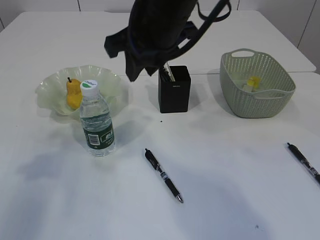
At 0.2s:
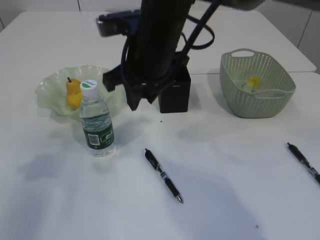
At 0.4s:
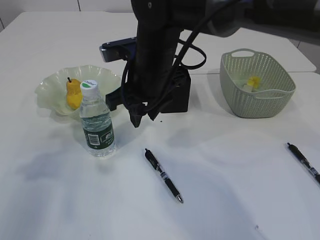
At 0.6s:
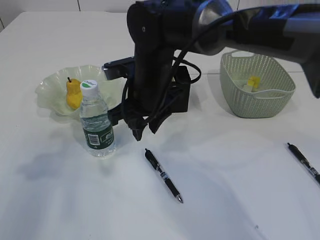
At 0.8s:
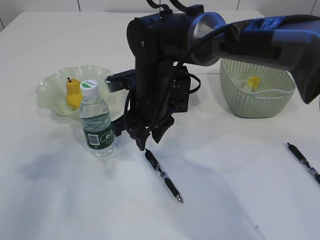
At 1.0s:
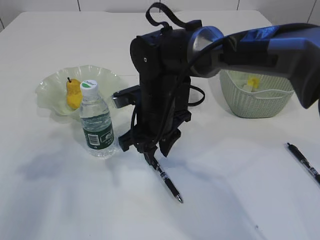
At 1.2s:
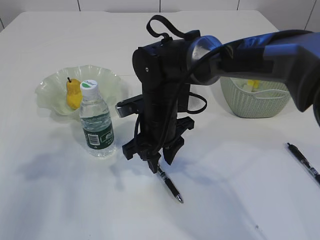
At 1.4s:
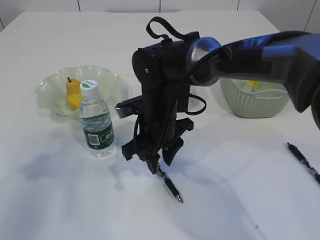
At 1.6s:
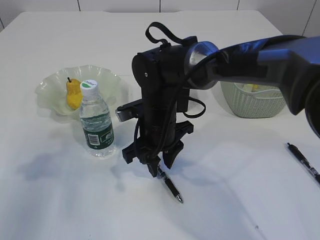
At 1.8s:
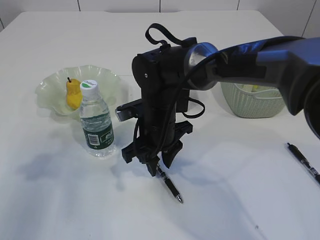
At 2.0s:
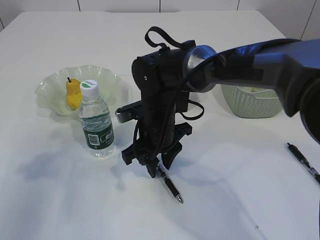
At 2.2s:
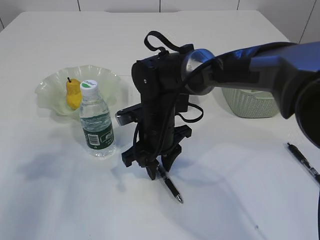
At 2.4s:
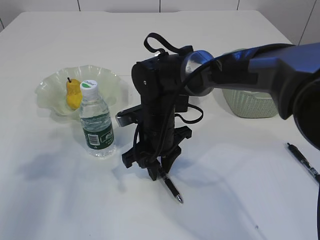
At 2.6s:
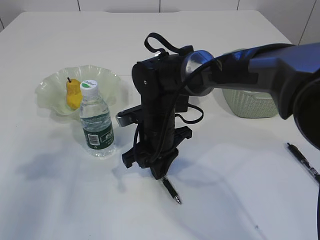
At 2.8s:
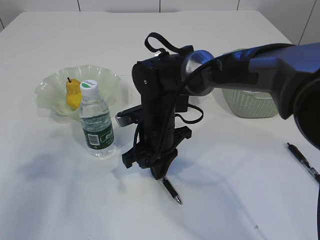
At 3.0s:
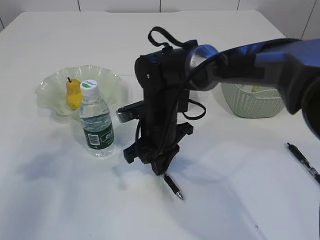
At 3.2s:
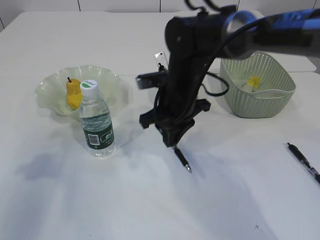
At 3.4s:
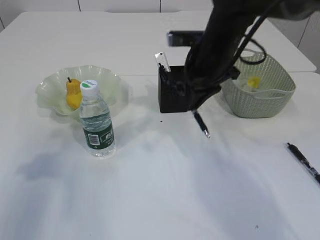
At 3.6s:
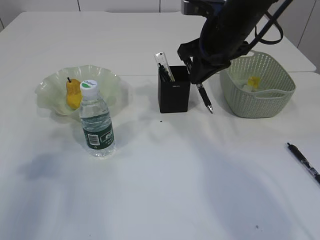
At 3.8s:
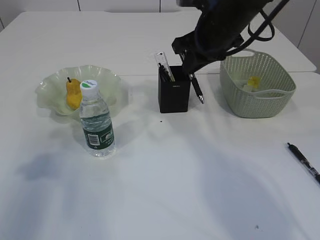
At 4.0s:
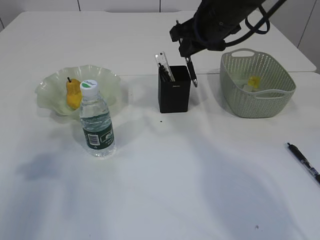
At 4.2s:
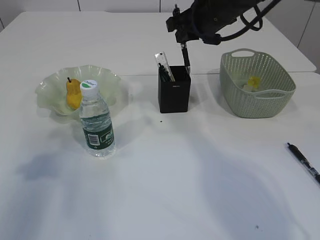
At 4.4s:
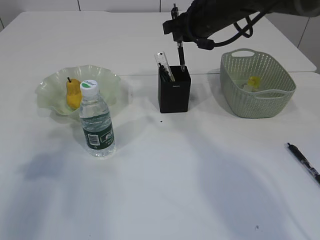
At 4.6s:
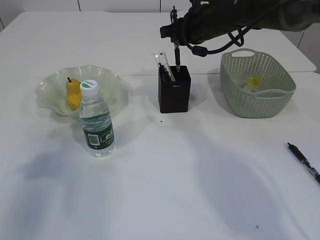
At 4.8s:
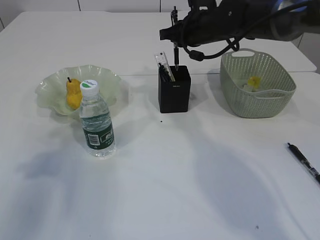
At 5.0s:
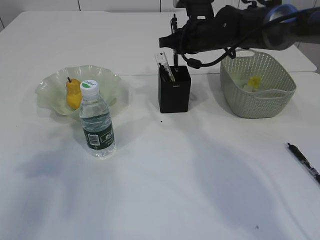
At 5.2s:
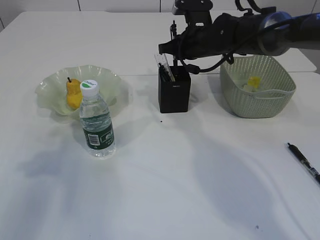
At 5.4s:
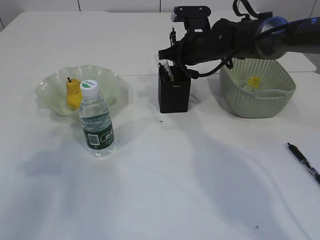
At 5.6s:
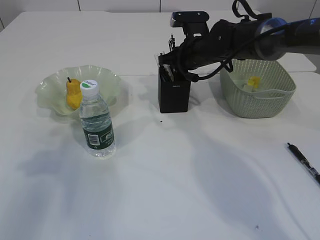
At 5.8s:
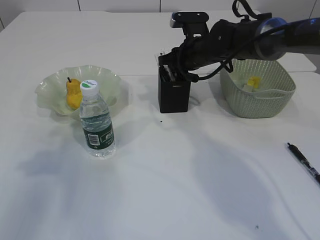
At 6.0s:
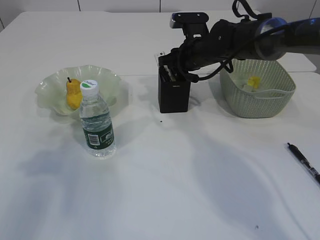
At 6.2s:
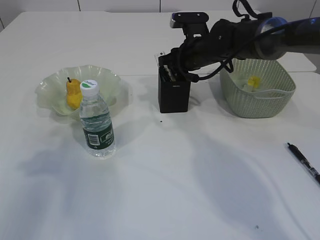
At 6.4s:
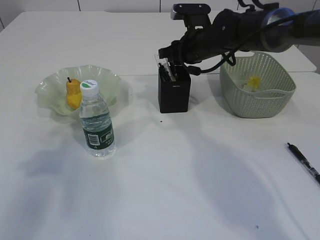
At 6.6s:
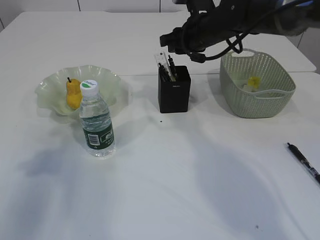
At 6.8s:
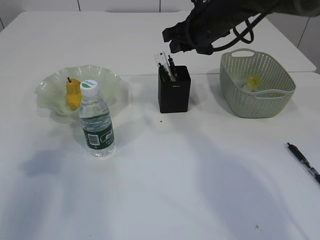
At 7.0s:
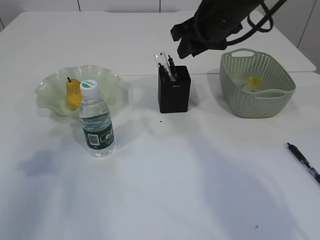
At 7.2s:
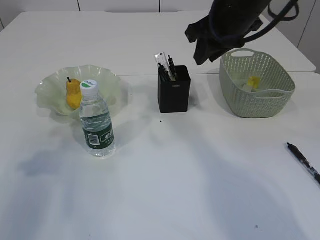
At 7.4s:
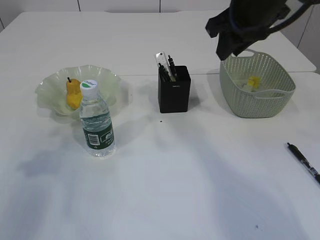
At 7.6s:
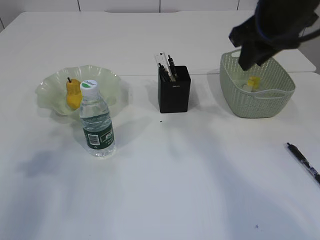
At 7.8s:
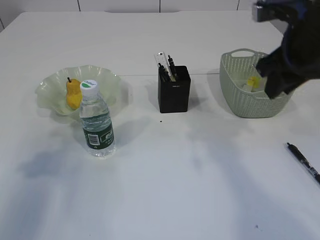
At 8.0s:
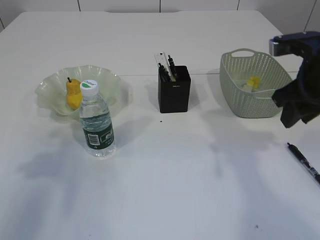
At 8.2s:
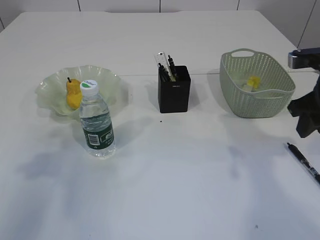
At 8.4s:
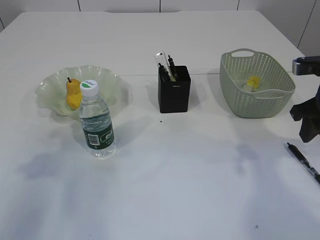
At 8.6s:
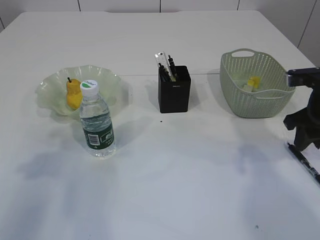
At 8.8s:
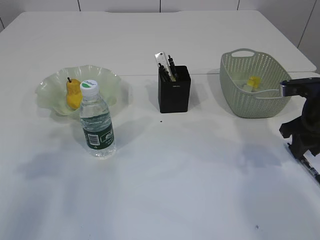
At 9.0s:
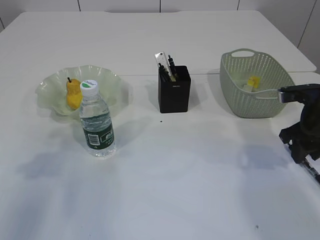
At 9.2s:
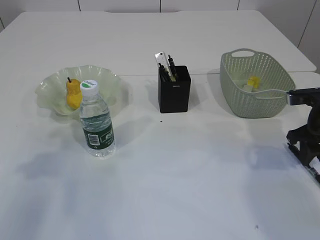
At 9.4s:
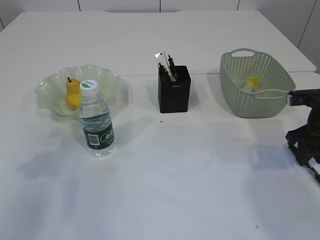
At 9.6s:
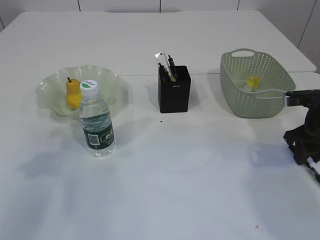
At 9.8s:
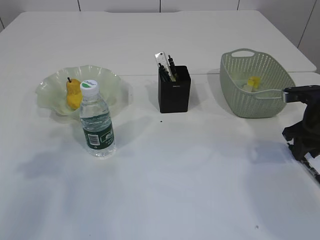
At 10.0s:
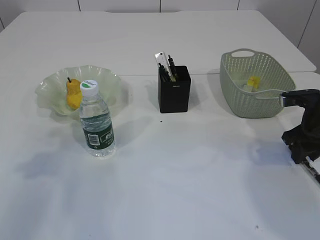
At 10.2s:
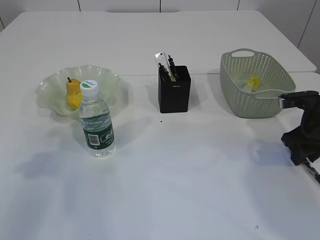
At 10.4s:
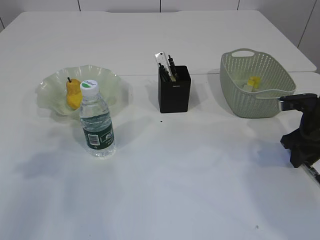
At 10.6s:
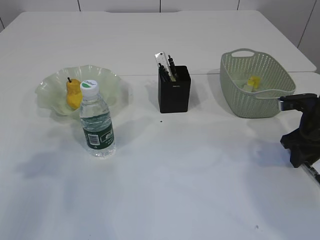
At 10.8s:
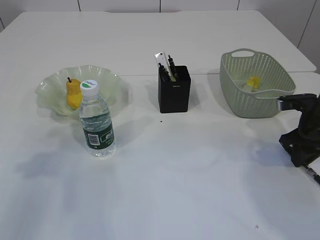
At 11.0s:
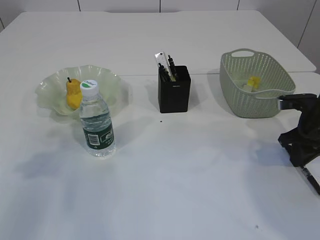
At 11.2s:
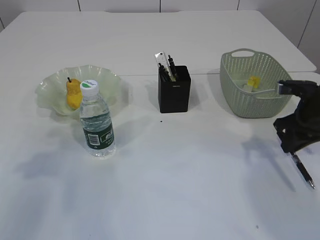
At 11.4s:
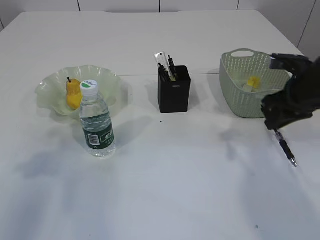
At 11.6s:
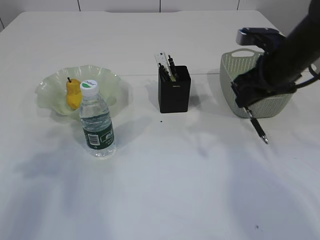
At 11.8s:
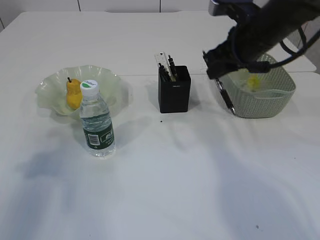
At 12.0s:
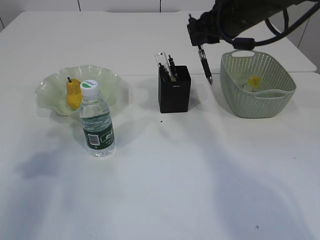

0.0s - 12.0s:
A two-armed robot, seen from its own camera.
Step, 0.0s - 3.0s: Pick up the pen with right arm.
Step, 3.2s - 6.6s: Place the pen into the pen holder.
Step, 6.8s - 11.2s: Pick up the pen with right arm.
0.0s - 1.6s: The right gripper goes about 20 cm downward.
1.6s - 3.0s: The right gripper closes.
3.0s - 4.4s: The right gripper goes about 20 cm upward, to the right and forward.
4.4s - 6.0s: The right gripper shifts some 10 cm downward.
6.0s - 7.6s: The right gripper travels upward, backward and to the right by roughly 20 cm.
7.6s - 9.0s: The right gripper travels downward and to the right by about 20 cm.
9.0s - 10.4s: The grippers stay close to where they were, moving slightly.
10.4s - 12.0s: The right gripper shifts some 25 cm upward and to the left.

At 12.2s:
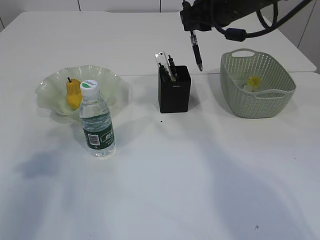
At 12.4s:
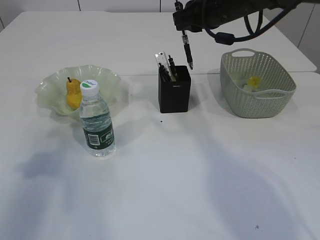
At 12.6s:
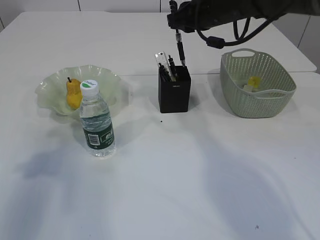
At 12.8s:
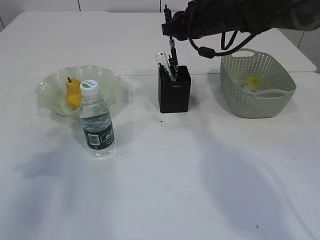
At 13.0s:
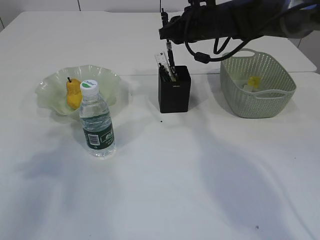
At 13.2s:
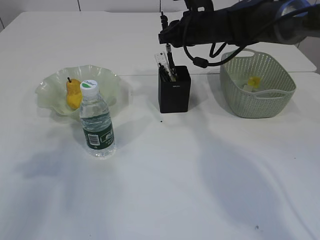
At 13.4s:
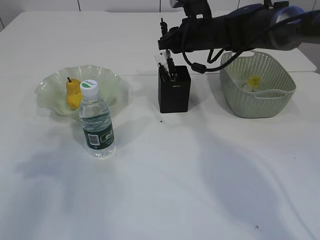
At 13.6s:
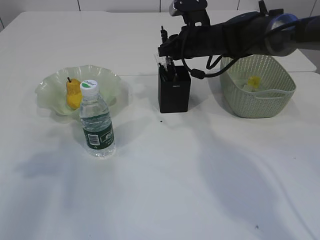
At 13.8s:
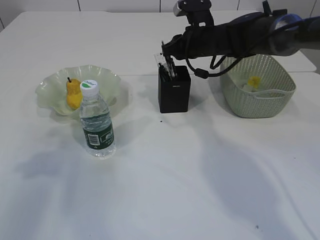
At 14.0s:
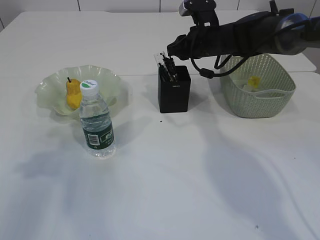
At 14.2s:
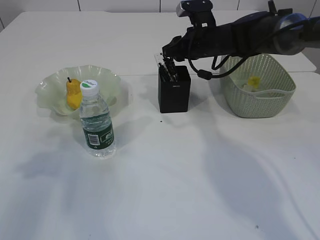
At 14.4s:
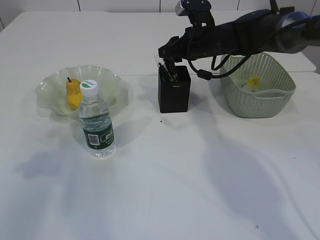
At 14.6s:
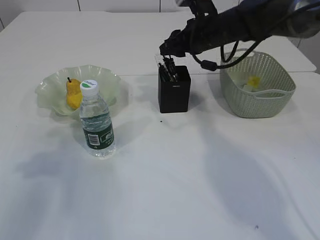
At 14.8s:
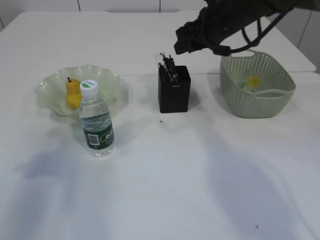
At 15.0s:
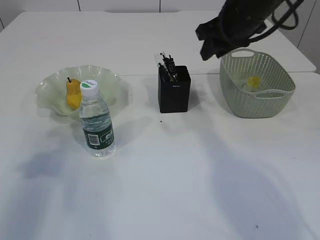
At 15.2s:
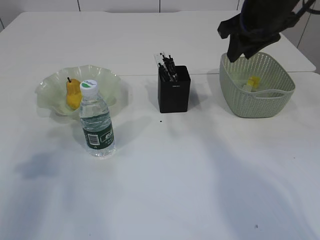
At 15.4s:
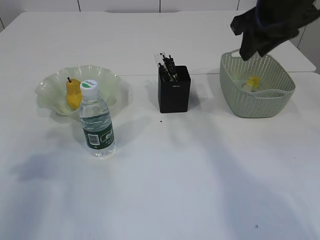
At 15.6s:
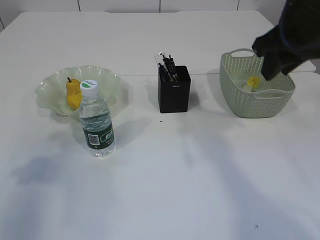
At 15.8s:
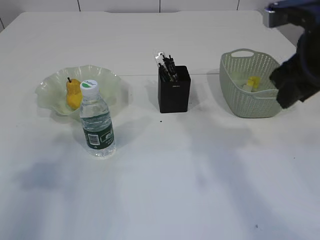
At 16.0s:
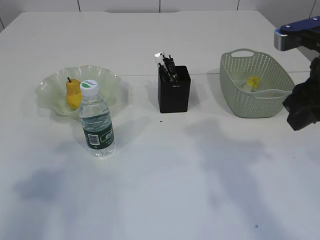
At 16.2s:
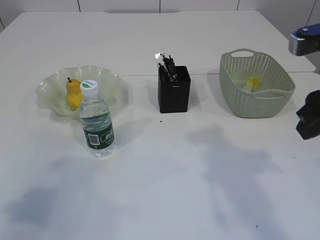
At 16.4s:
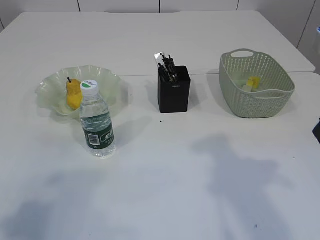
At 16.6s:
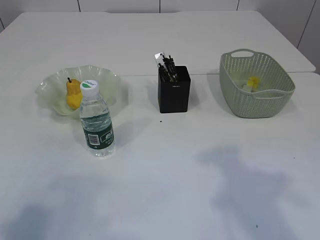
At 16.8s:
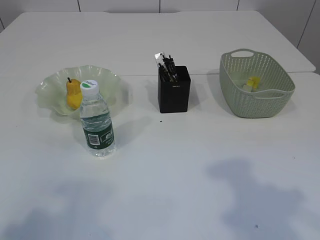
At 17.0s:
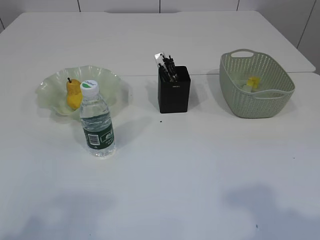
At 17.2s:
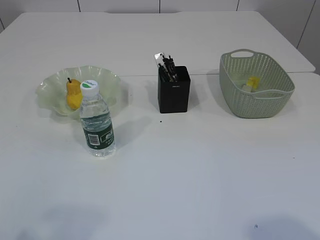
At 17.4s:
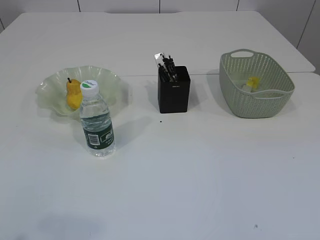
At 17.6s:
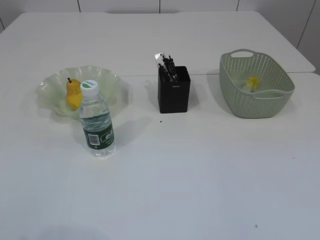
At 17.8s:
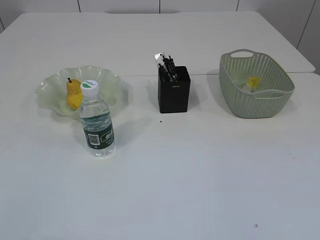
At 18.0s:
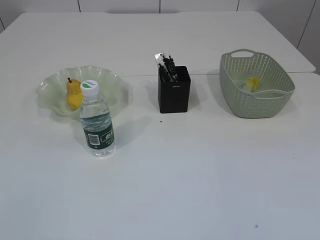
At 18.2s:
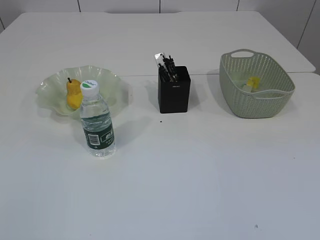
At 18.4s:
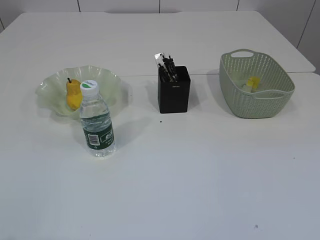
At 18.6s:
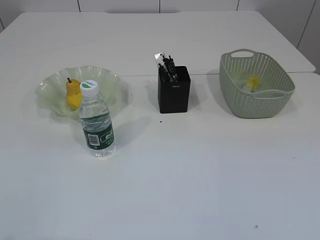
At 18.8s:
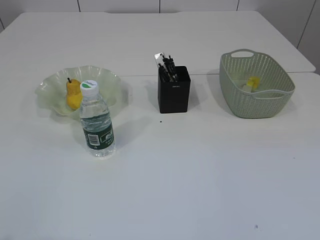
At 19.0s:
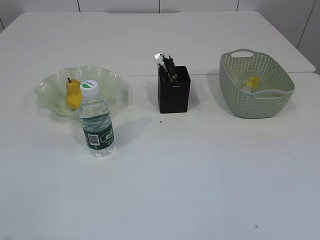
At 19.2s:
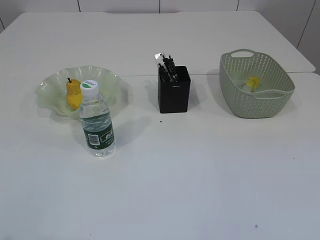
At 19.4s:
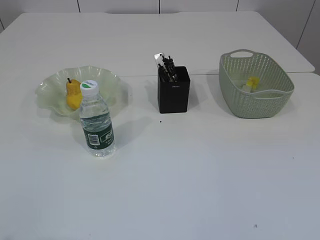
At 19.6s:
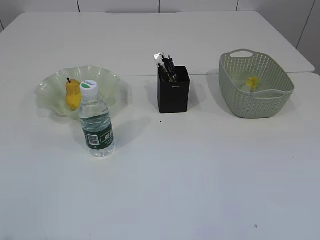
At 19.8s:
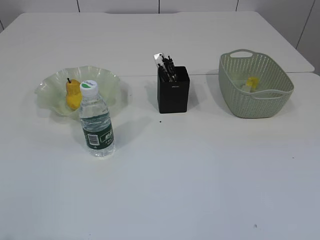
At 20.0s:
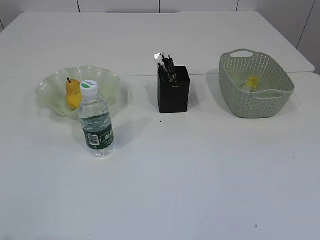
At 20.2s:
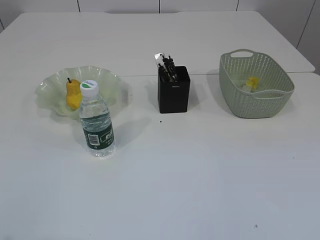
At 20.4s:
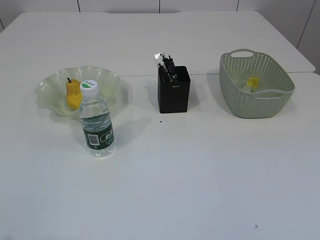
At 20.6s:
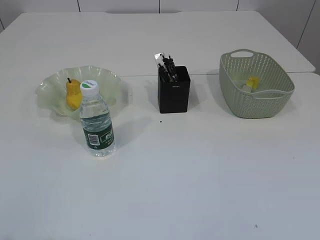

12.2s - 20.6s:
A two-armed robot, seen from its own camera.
Step, 12.2s - 14.6s: Place the pen into the pen holder.
12.2s - 13.6s: The right gripper travels downward and forward by roughly 15 cm.
13.6s - 15.0s: The right gripper shifts about 10 cm upward and backward.
15.0s - 16.4s: The left gripper moves backward, about 15 cm; the right gripper heads backward, covering approximately 20 cm.
16.4s - 17.8s: The left gripper heads backward, covering roughly 10 cm.

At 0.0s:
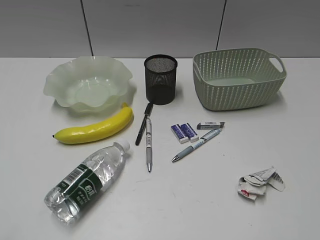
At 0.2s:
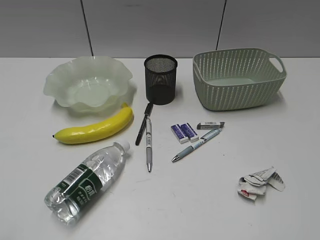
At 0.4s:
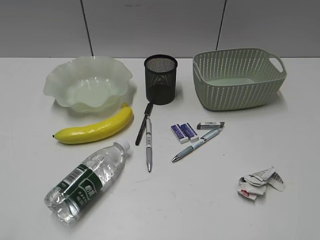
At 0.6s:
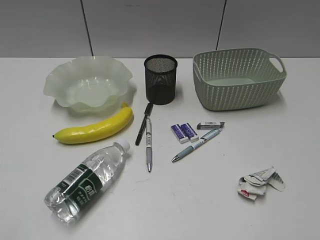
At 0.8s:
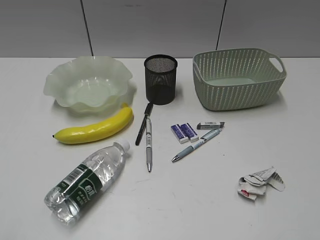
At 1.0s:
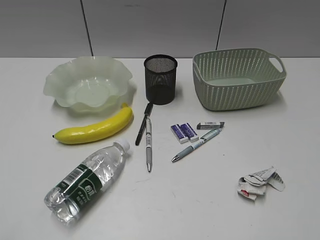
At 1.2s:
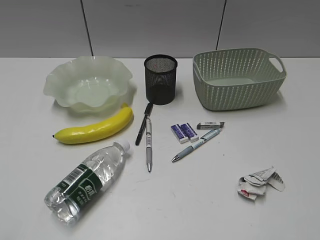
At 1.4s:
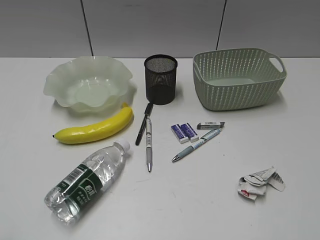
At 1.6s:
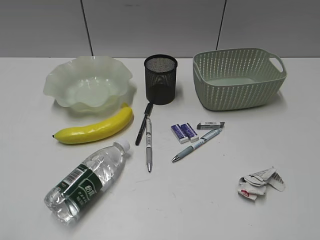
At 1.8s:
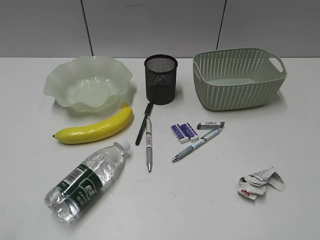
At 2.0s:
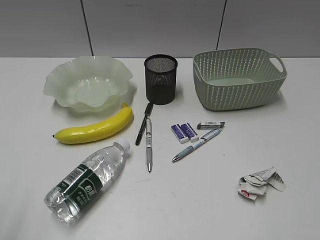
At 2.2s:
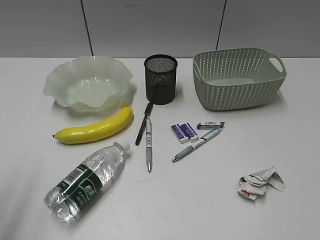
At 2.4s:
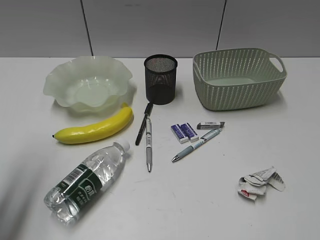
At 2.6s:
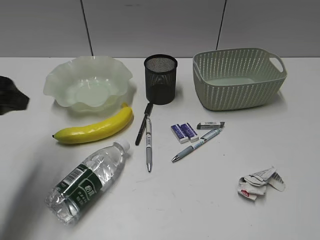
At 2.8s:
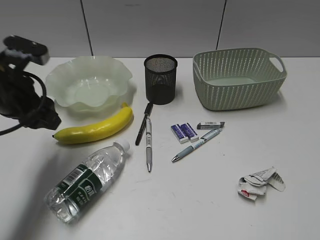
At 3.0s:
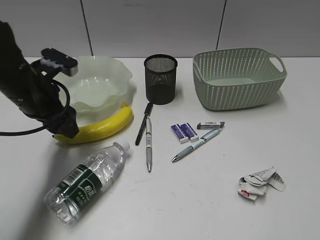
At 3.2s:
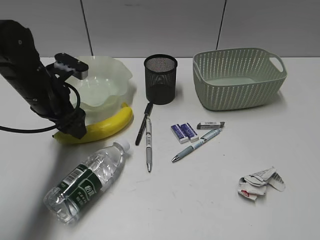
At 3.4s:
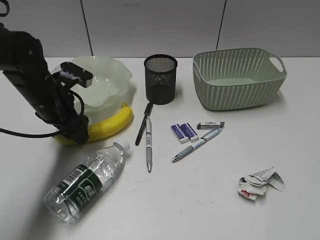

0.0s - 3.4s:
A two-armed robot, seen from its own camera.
1.6s - 3.4s: The left gripper heads forward and downward, covering roughly 40 cm, and opens.
